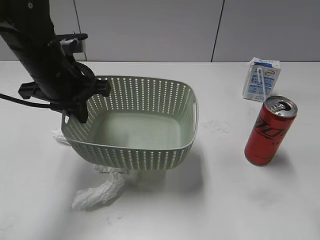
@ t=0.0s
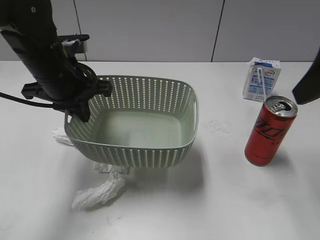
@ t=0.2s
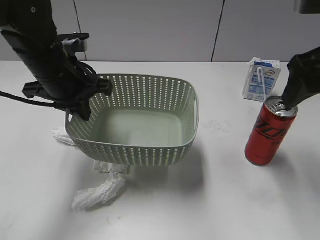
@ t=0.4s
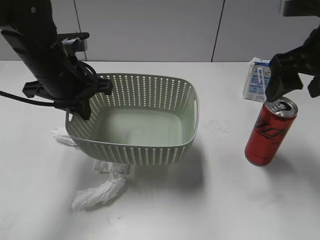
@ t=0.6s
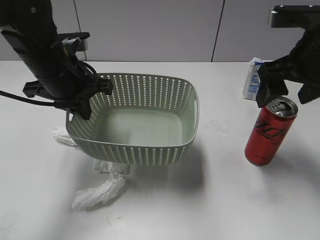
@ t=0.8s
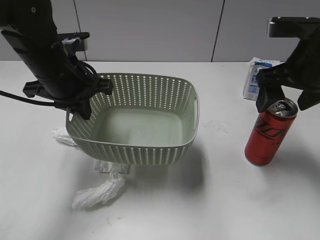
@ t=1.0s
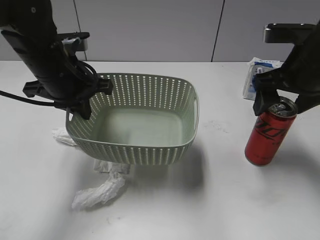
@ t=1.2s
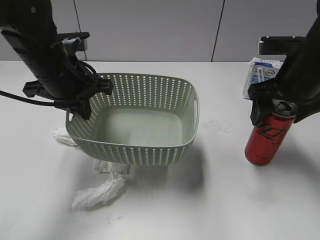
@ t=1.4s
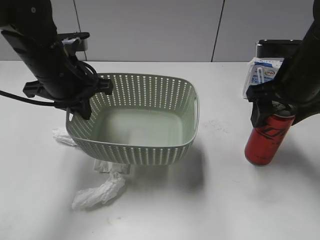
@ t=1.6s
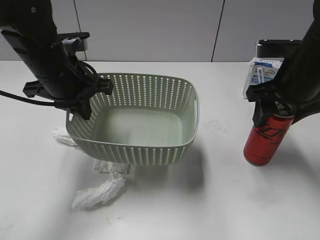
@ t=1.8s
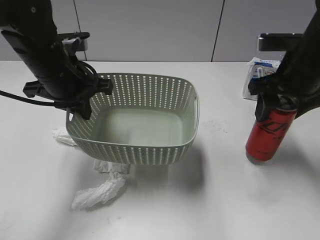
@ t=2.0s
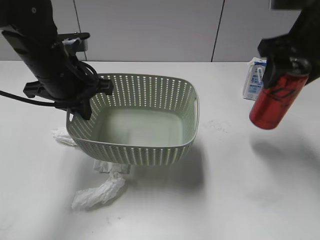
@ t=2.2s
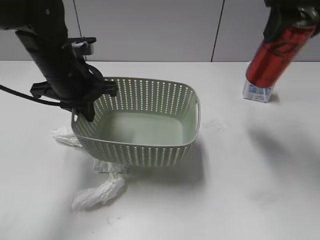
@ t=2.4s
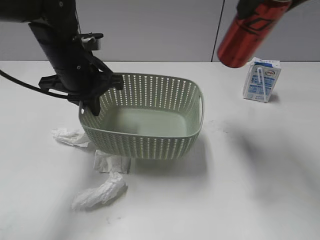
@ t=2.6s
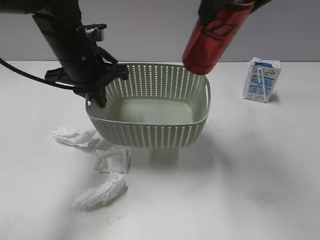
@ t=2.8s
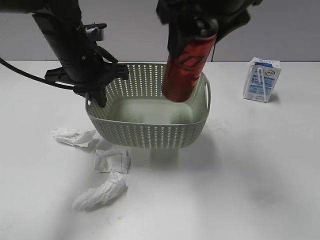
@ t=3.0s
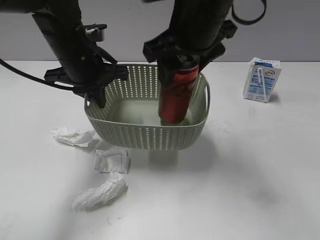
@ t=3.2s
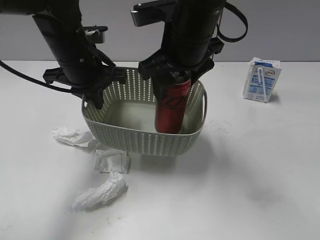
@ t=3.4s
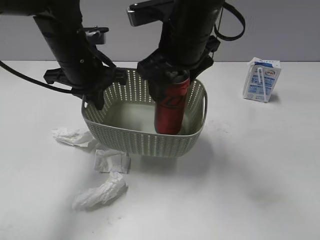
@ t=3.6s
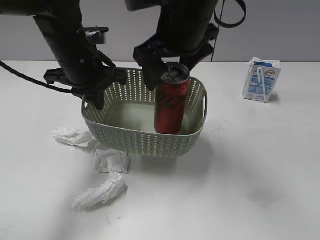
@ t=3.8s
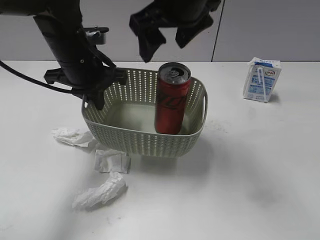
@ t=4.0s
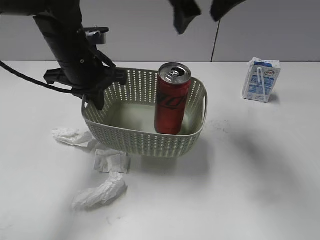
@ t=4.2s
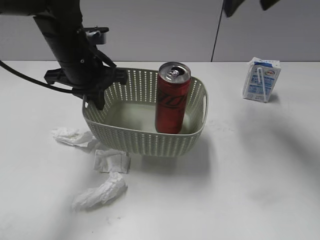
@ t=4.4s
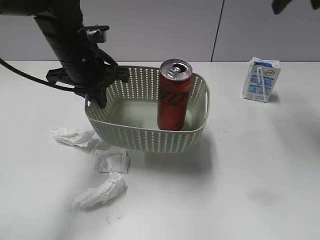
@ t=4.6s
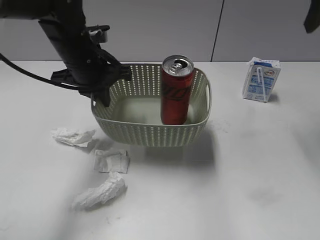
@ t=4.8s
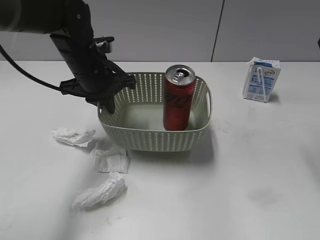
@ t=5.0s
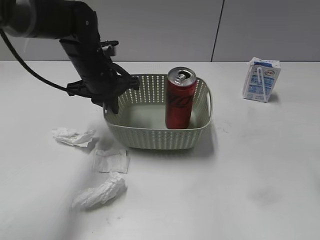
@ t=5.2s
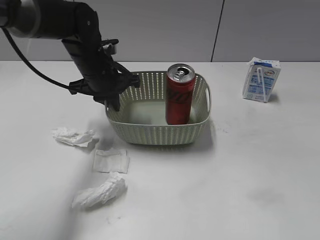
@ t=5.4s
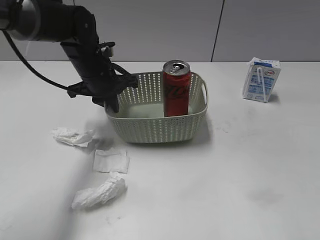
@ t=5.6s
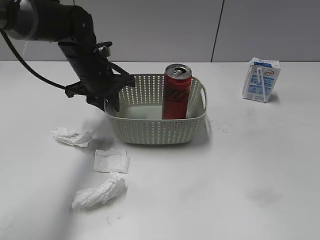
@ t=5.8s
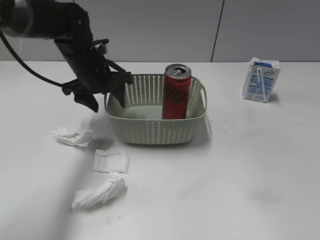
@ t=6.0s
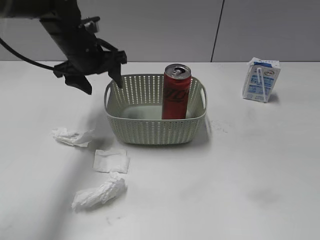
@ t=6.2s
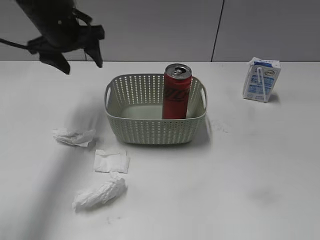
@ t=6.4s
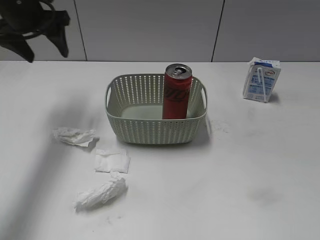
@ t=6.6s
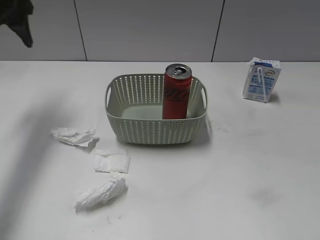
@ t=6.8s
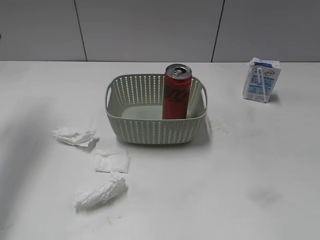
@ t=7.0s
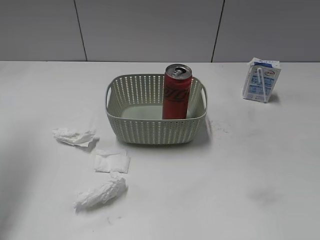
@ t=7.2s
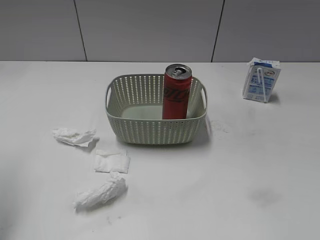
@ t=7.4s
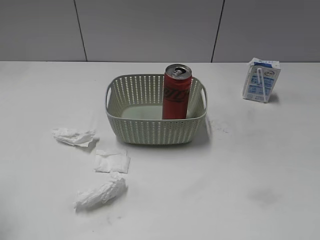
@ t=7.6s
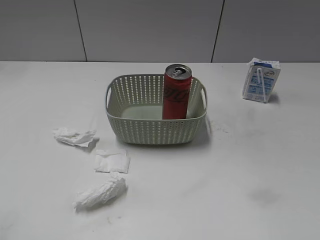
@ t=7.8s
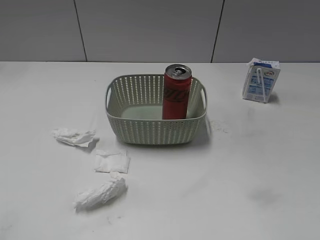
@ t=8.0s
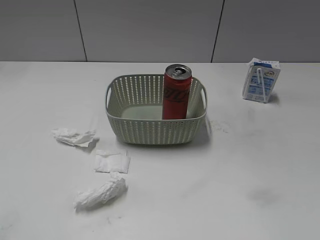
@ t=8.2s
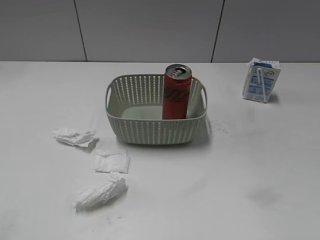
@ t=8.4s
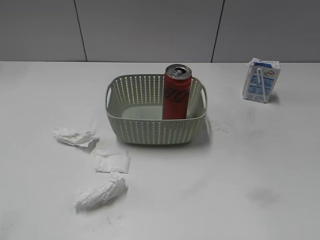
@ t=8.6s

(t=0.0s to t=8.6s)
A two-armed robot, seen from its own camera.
Step, t=0.2s - t=1.8s: Grasp the cola can with right gripper.
Step, t=2.0s - t=3.8s: Place the cola can in the basket with right gripper.
t=0.0s - t=1.4s: The right gripper moves forward and downward, about 20 cm, and opens its fingers.
t=1.4s - t=2.8s: The right gripper shifts some 20 cm upward and to the left, and closes up.
t=2.8s - t=4.4s: The right gripper travels forward and to the right by roughly 15 cm, and opens up.
t=4.4s - t=5.8s: The right gripper is displaced backward by approximately 35 cm. The left gripper travels downward and forward by roughly 10 cm, and opens its fingers.
t=5.8s - t=7.2s: The right gripper goes roughly 5 cm backward; the left gripper is displaced to the left, upward and backward by approximately 30 cm, and opens up.
t=7.2s - t=8.6s: The left gripper moves backward, about 30 cm.
